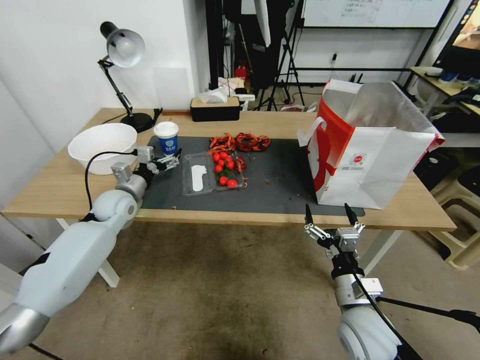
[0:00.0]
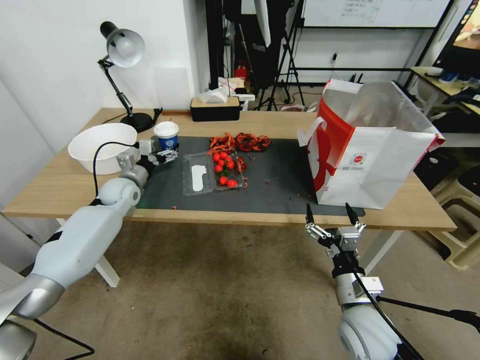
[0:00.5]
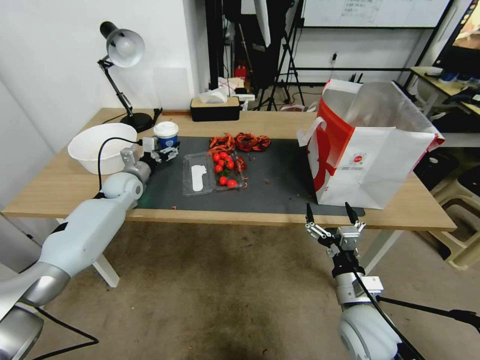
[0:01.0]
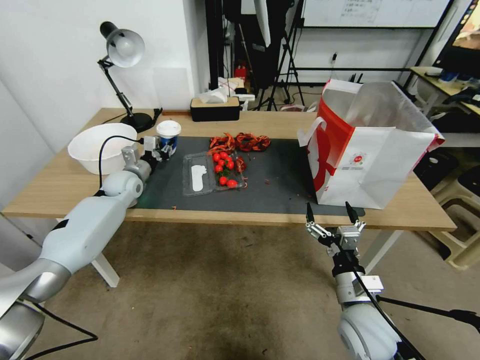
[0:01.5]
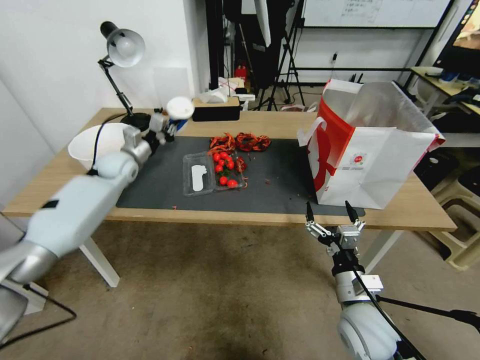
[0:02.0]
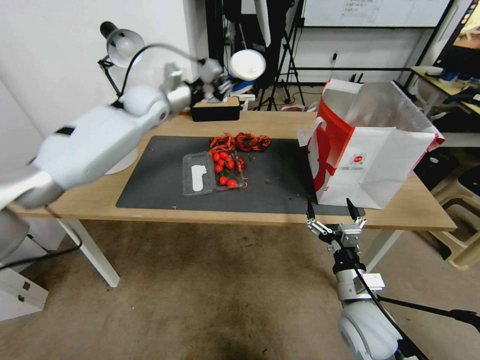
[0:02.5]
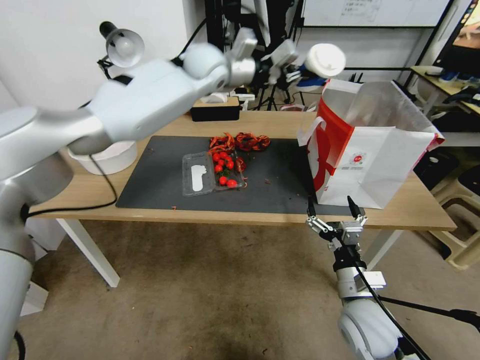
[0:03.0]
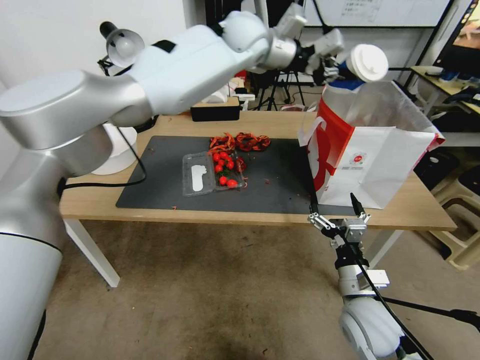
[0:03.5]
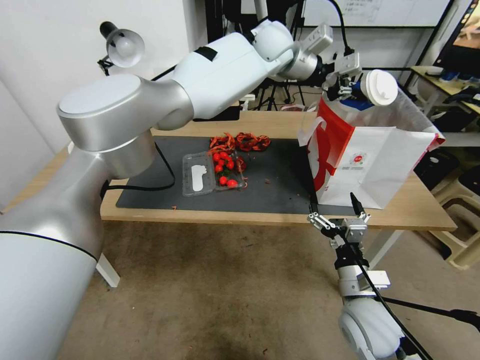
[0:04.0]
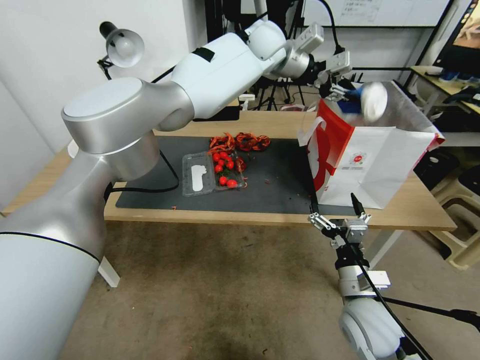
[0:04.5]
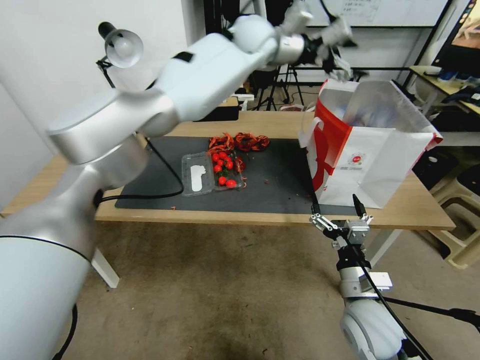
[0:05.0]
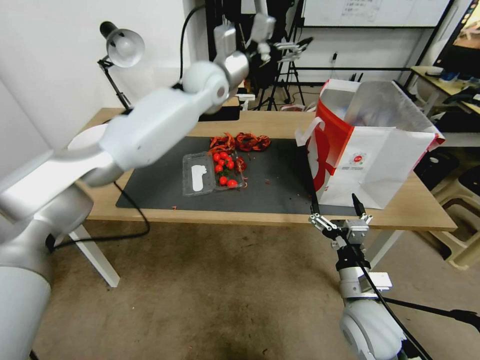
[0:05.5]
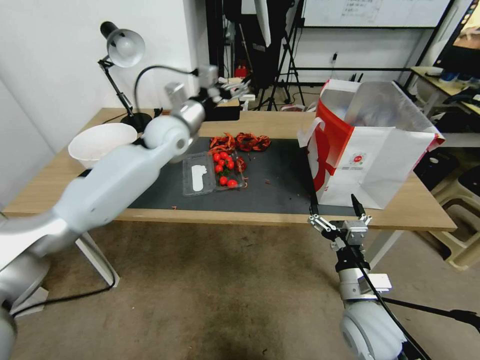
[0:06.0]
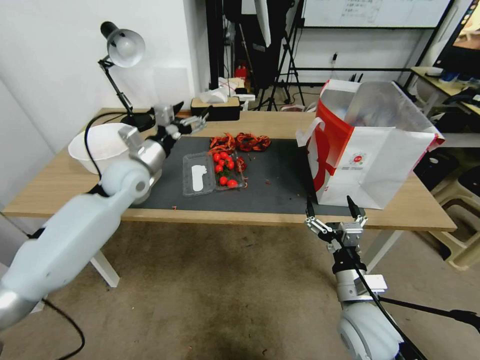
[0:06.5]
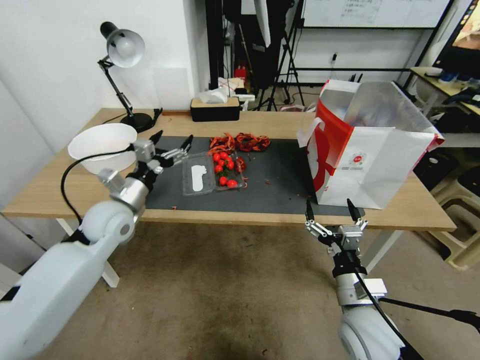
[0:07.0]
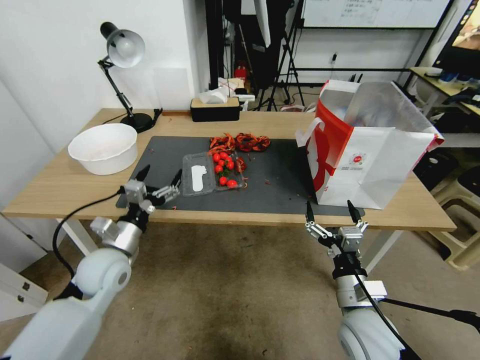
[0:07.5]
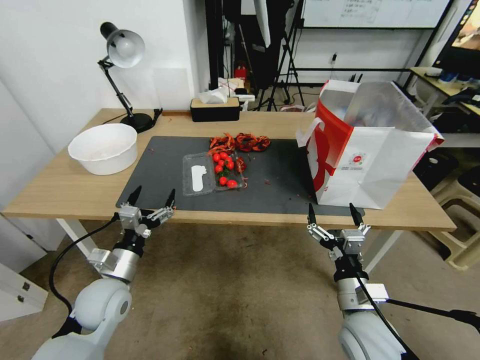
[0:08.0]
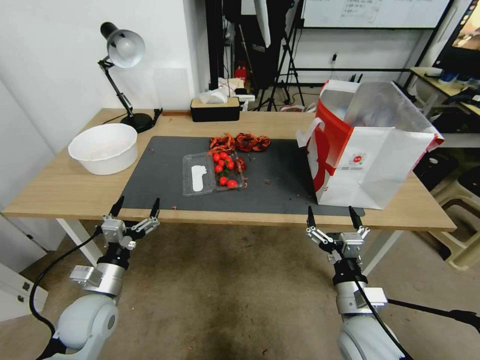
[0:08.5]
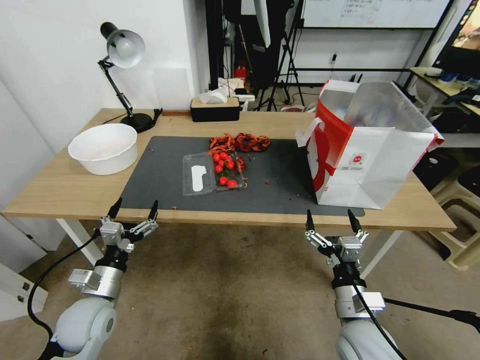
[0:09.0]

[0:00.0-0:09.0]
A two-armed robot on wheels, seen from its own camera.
0:00.0 to 0:02.0: The left gripper shifts roughly 10 cm forward and upward, and closes its fingers.
0:02.0 to 0:04.5: The left gripper is displaced to the right and upward by some 50 cm.
0:04.5 to 0:07.0: The left gripper is displaced to the left, downward and backward by roughly 50 cm, and opens.
0:07.0 to 0:09.0: The left gripper goes approximately 20 cm backward and downward.

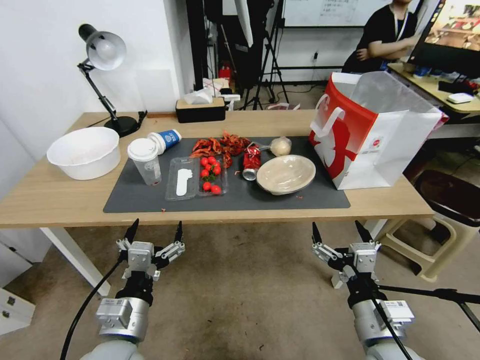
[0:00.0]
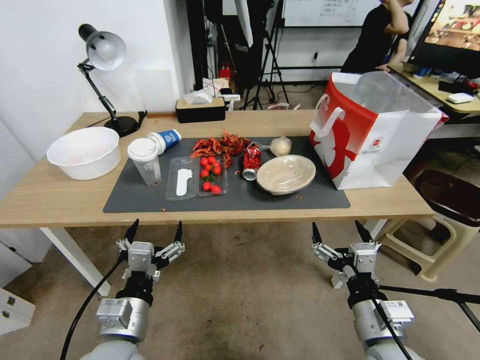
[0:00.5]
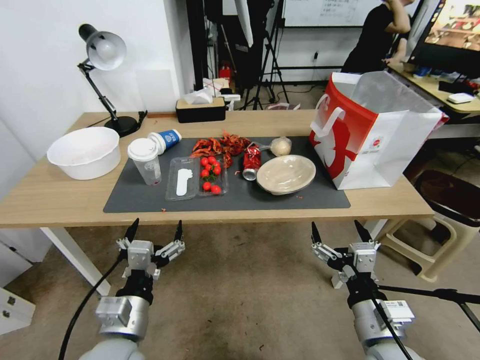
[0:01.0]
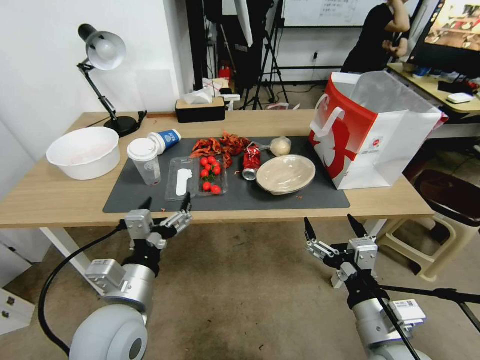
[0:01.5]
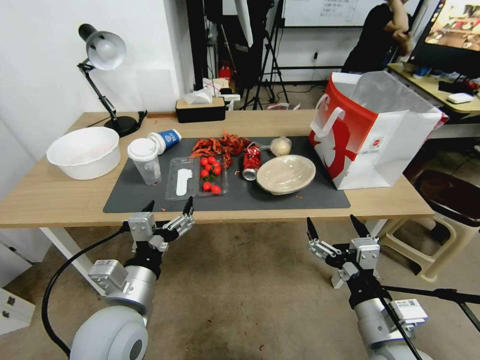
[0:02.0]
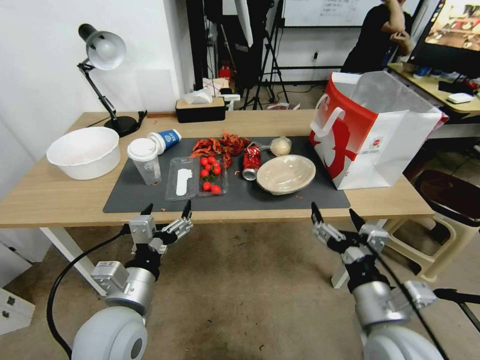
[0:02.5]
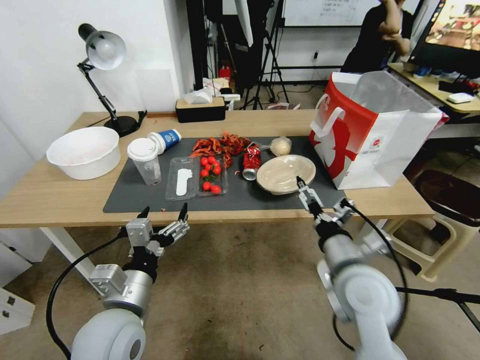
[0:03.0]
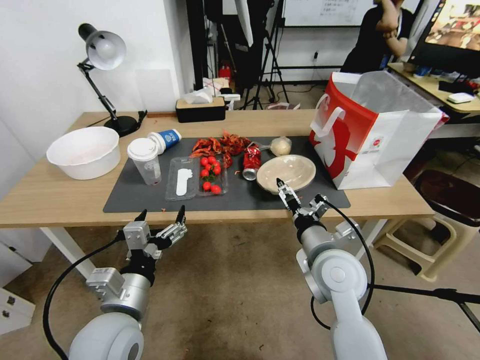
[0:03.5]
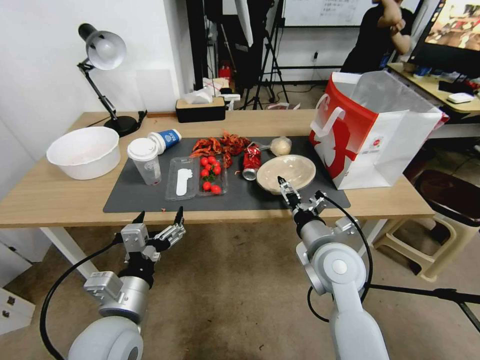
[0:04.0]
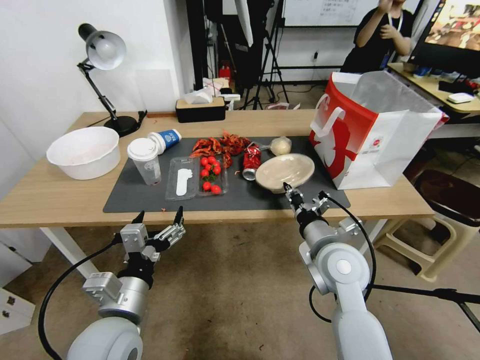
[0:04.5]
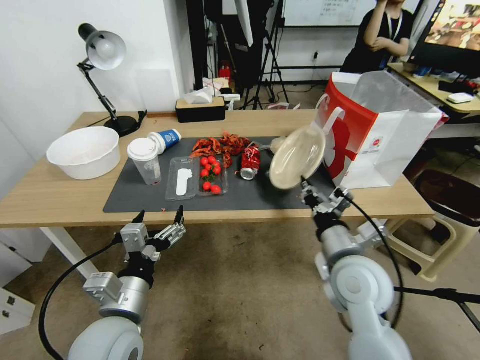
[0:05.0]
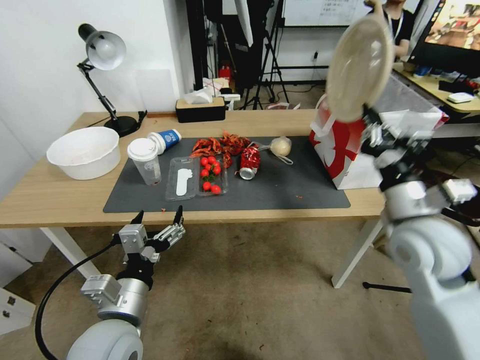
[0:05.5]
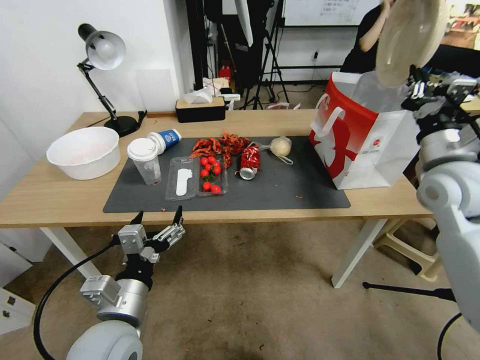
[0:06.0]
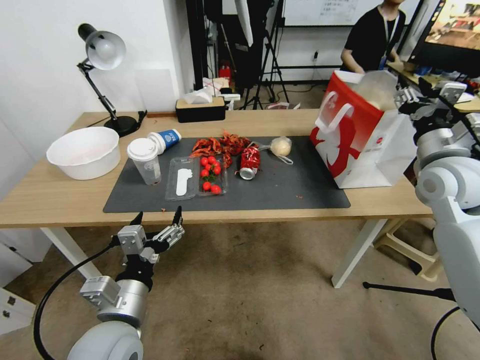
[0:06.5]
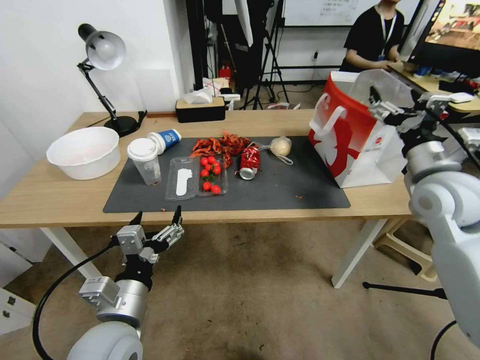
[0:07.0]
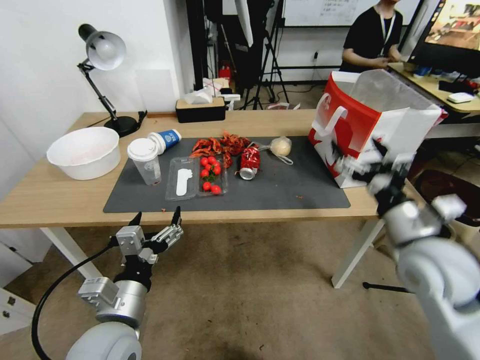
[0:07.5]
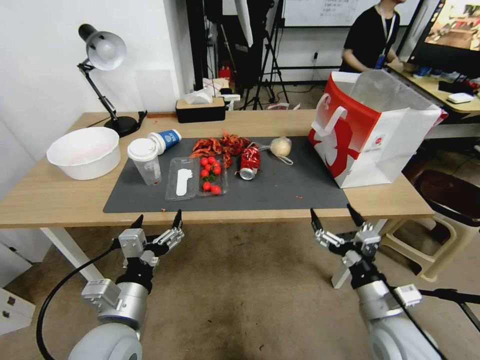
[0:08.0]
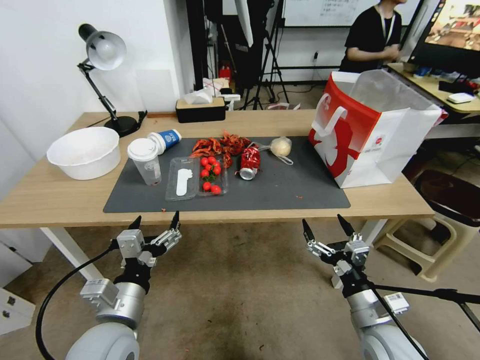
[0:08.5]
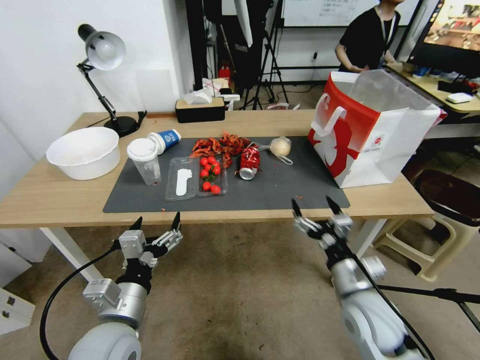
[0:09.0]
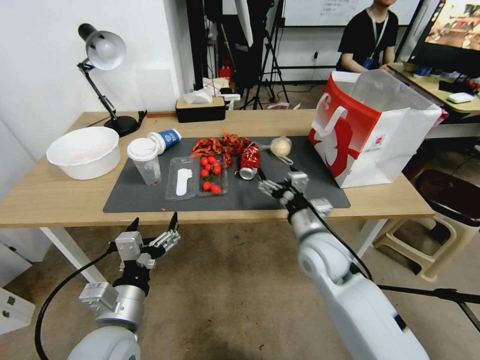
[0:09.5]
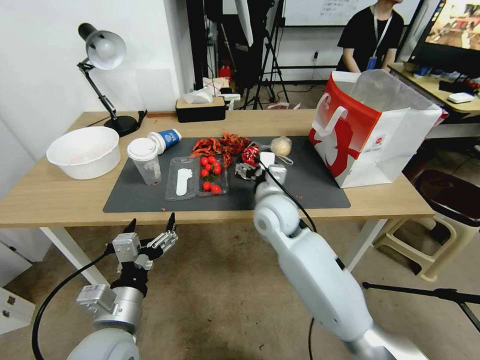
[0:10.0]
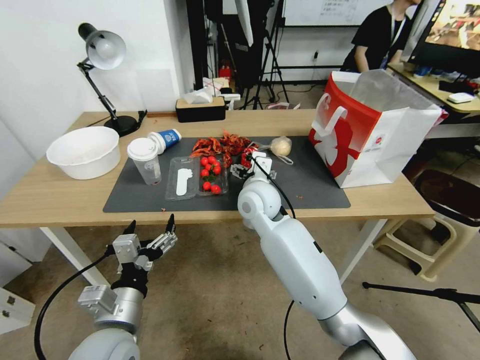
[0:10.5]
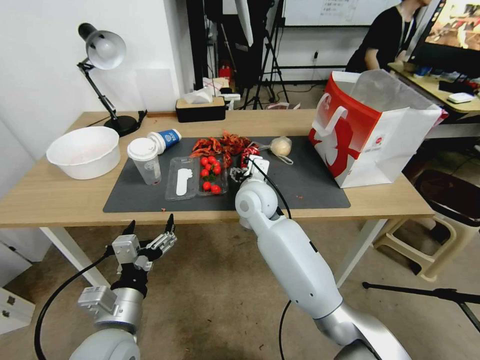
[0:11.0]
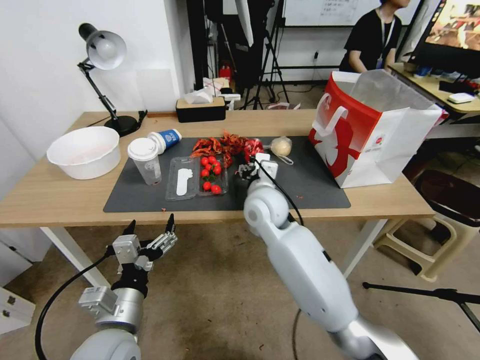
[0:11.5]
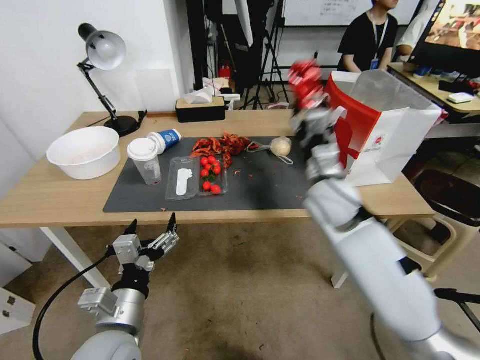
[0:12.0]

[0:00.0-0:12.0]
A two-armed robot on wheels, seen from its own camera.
0:02.0 to 0:04.0: The right gripper travels forward by some 15 cm.
0:04.0 to 0:06.0: The right gripper shifts about 20 cm to the right and upward, and closes its fingers.
0:06.0 to 0:08.0: The right gripper is displaced downward and backward by some 25 cm, and opens.
0:08.0 to 0:10.0: The right gripper travels forward and to the left by roughly 30 cm.
0:10.0 to 0:12.0: The right gripper heads to the right and upward, covering some 10 cm, and closes.

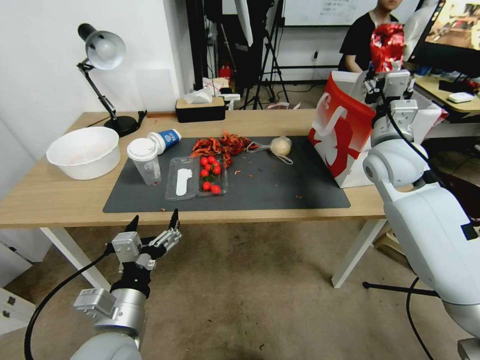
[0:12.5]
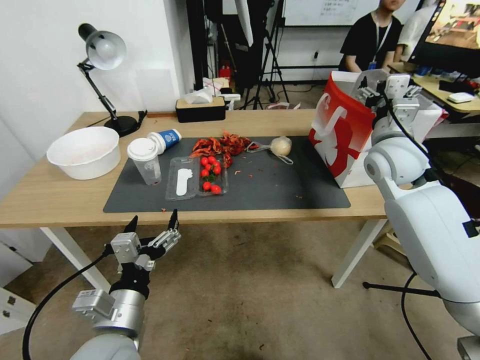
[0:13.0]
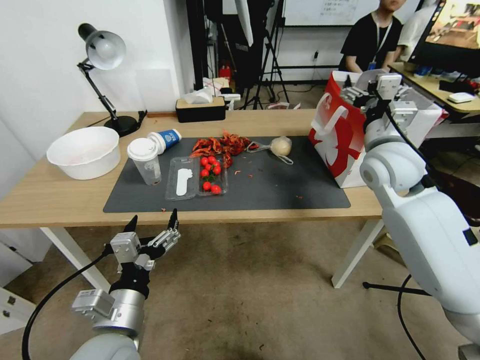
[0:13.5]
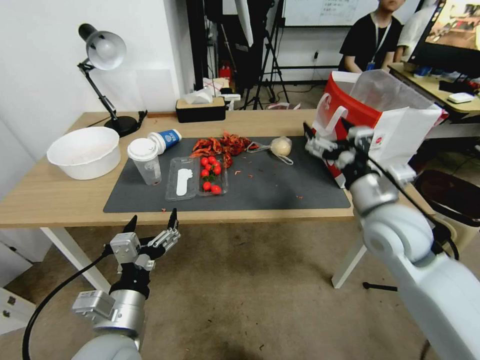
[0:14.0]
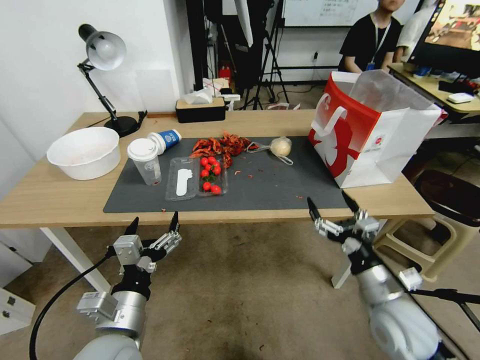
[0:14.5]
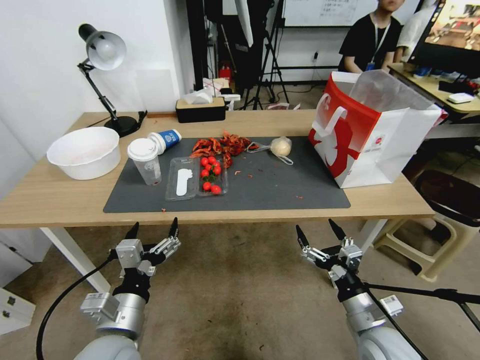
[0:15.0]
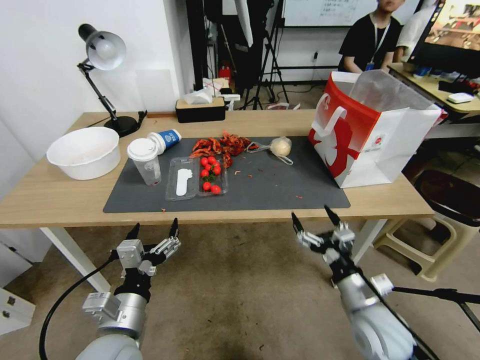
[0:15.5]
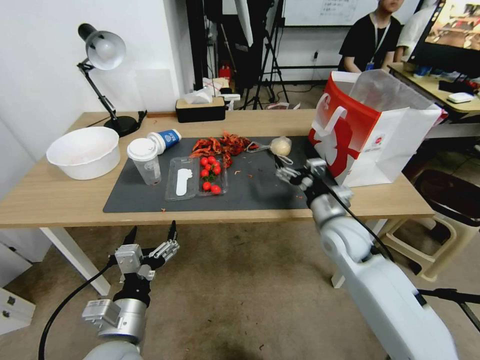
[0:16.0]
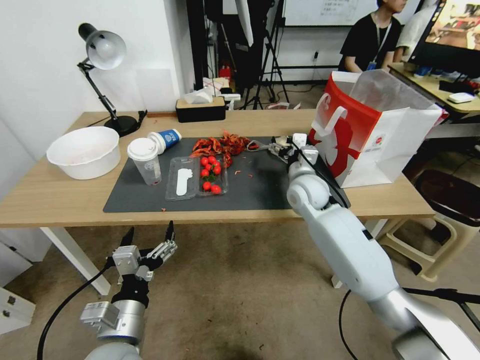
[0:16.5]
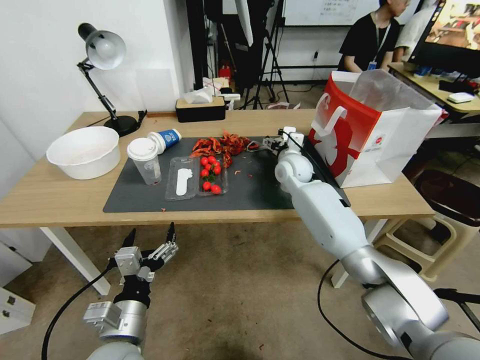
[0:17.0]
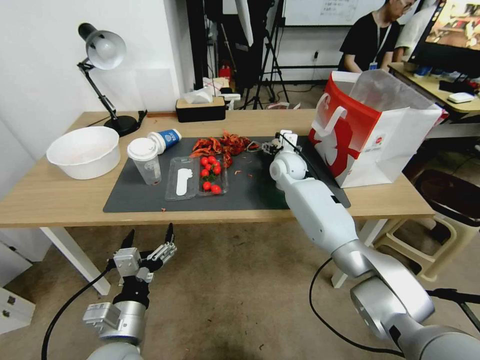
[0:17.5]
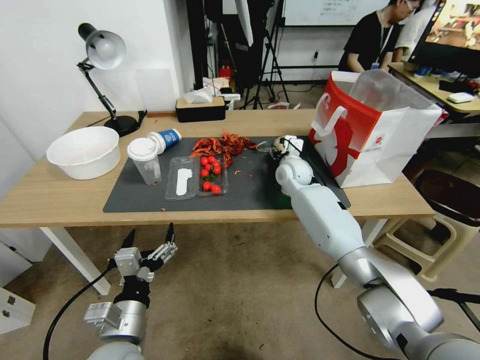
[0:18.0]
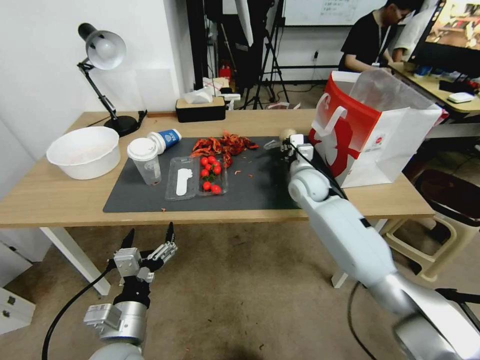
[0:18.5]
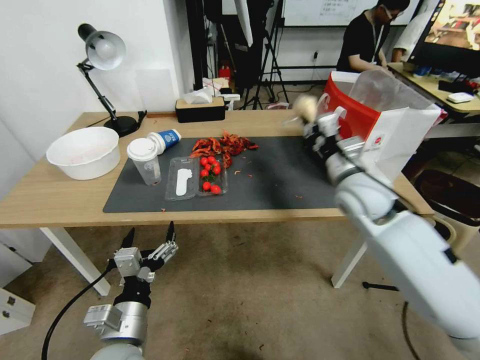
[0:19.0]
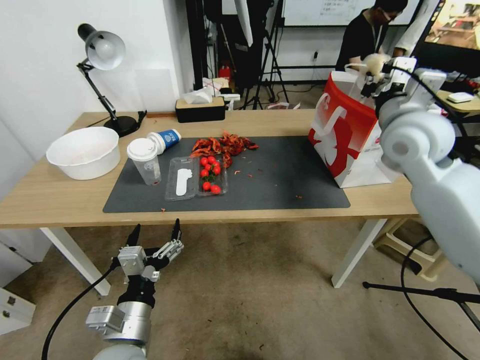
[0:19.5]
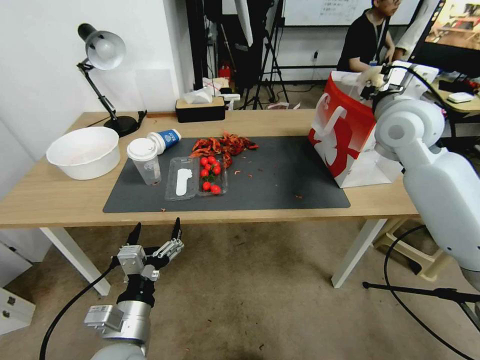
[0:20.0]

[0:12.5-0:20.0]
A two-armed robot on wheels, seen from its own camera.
0:12.5 to 0:14.5: The right gripper moves backward and downward, some 30 cm, and opens.
0:14.5 to 0:16.5: The right gripper shifts some 25 cm forward and to the left.
0:16.5 to 0:18.0: The right gripper moves forward, approximately 10 cm.
0:18.0 to 0:20.0: The right gripper heads upward, to the right and backward, covering about 30 cm, and closes up.
